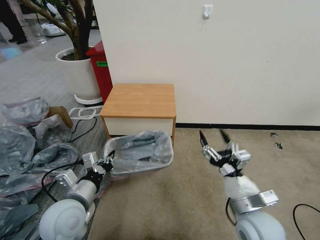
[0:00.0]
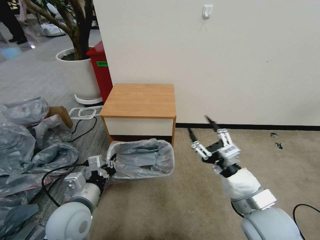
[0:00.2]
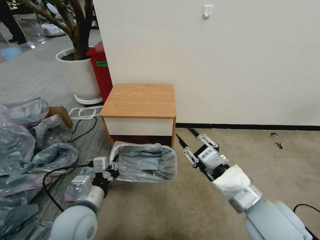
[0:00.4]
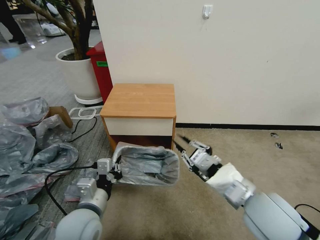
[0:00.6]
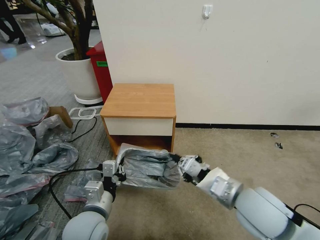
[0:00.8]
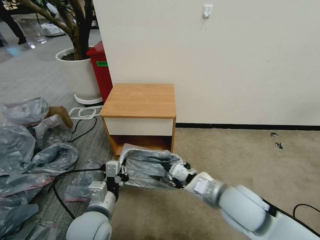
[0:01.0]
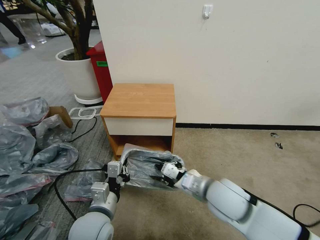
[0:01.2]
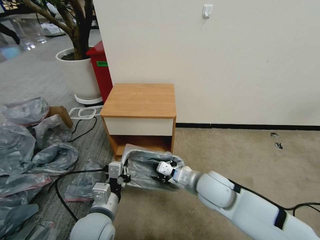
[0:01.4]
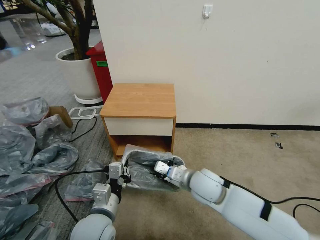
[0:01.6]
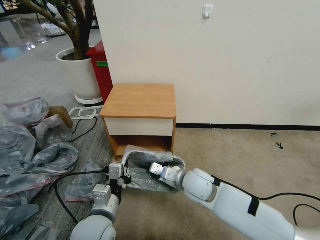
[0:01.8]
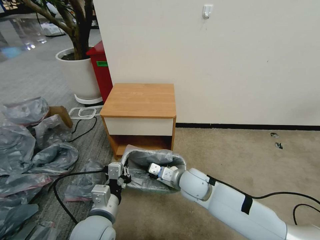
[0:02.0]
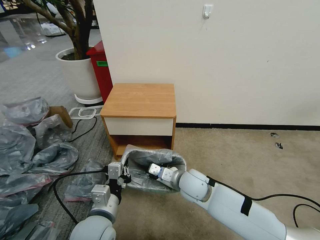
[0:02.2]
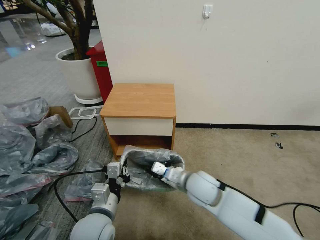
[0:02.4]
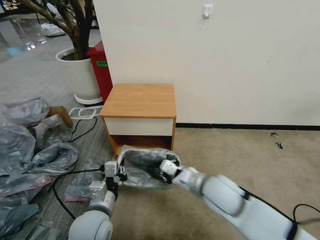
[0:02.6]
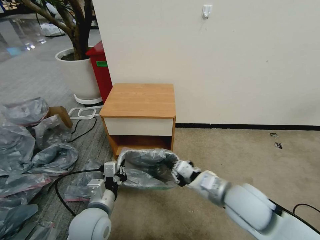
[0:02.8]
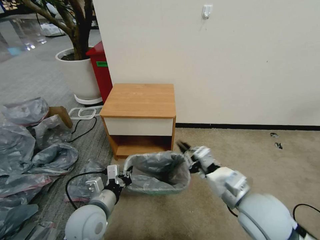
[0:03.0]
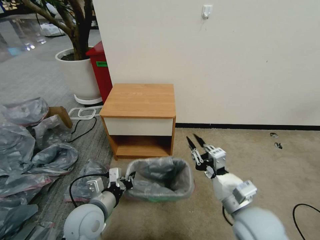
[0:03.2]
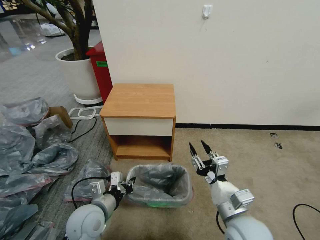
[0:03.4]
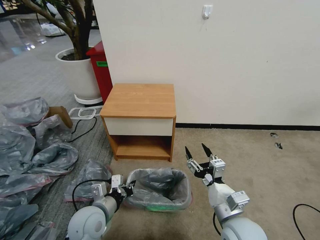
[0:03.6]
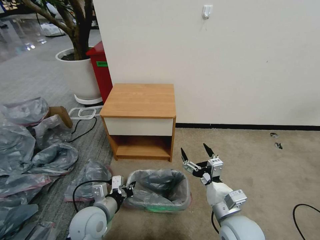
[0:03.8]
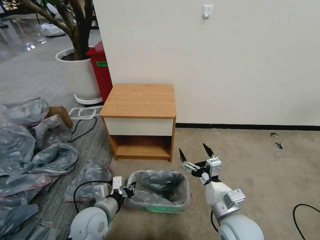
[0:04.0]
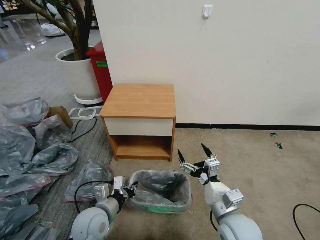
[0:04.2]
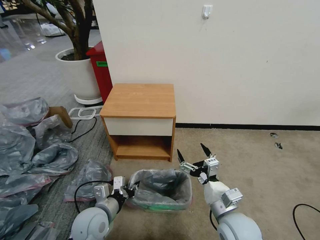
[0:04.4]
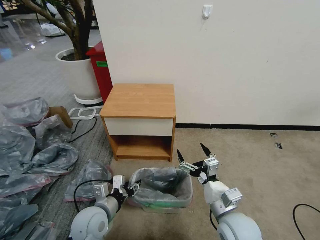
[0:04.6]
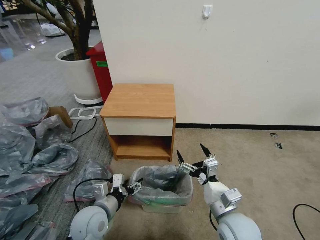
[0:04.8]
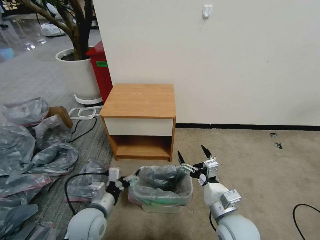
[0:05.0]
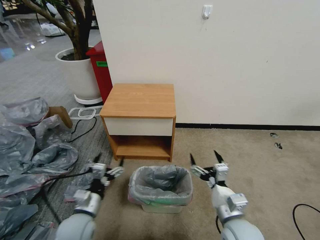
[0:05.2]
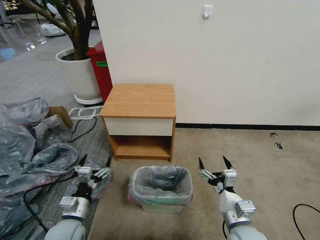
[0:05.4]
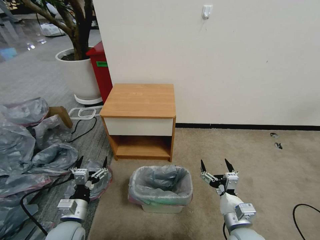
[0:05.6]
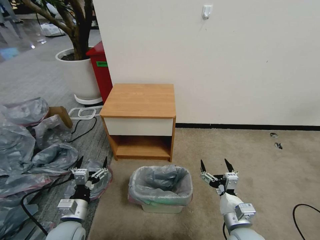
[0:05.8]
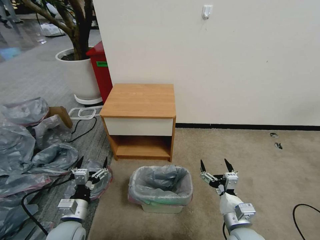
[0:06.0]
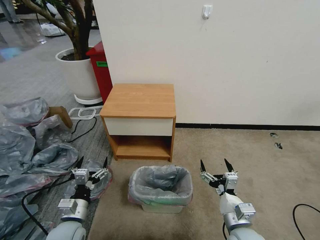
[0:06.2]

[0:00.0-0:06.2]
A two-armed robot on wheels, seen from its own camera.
Task of the whole recording: Pick up the garbage bag from the table and place it over the trash can.
0:00.0 to 0:01.6: The right gripper travels forward and to the left by roughly 15 cm, and closes. Meanwhile the left gripper is displaced to the right by about 5 cm.
0:01.6 to 0:03.2: The left gripper ends up some 5 cm from where it was, while the right gripper shifts roughly 15 cm backward and to the right.
0:03.2 to 0:04.6: The right gripper goes some 5 cm downward, and opens; the left gripper opens its fingers.
0:04.6 to 0:06.2: The right gripper is displaced downward by some 5 cm, while the left gripper goes about 5 cm to the left, and opens up.
